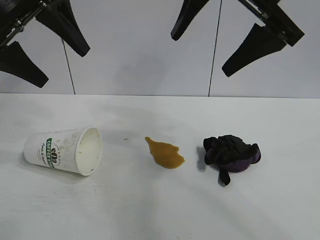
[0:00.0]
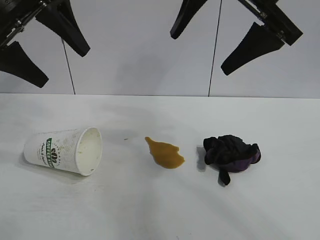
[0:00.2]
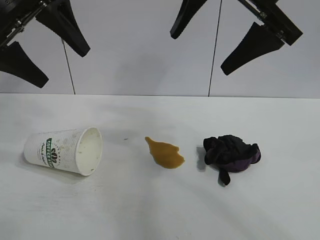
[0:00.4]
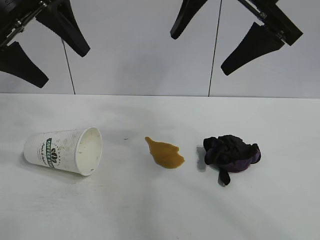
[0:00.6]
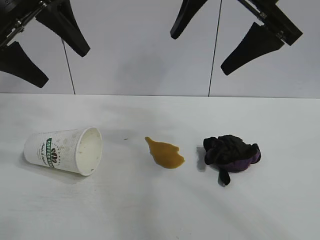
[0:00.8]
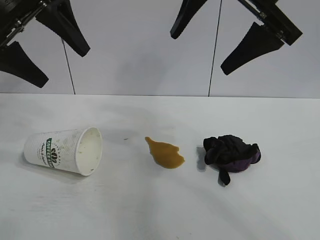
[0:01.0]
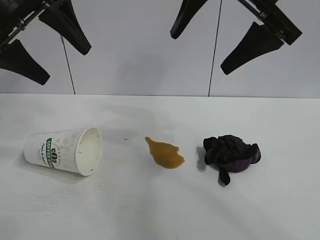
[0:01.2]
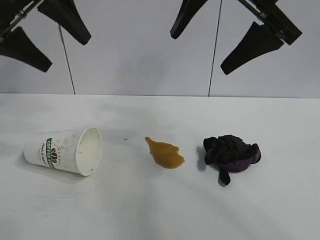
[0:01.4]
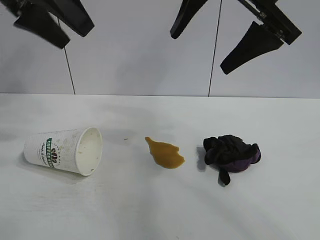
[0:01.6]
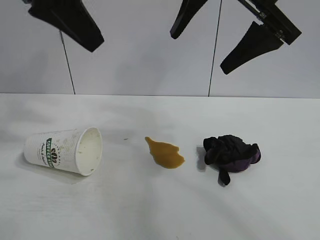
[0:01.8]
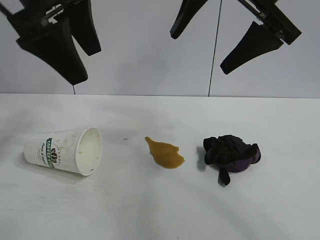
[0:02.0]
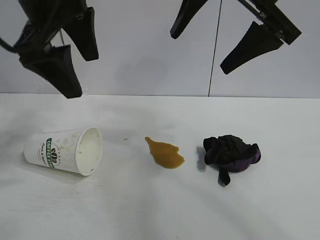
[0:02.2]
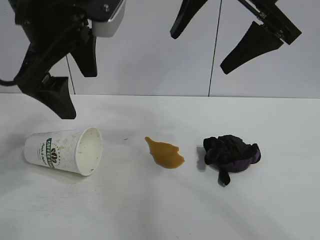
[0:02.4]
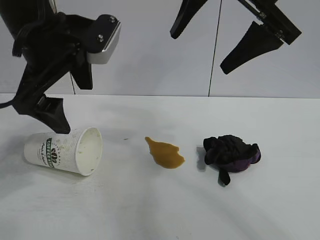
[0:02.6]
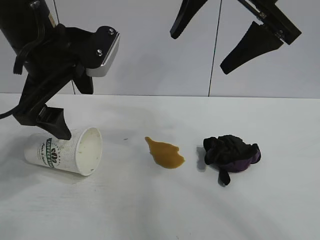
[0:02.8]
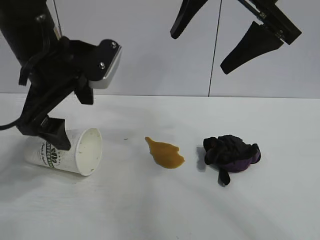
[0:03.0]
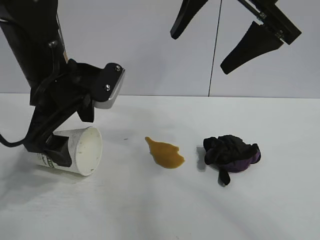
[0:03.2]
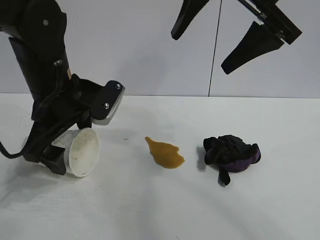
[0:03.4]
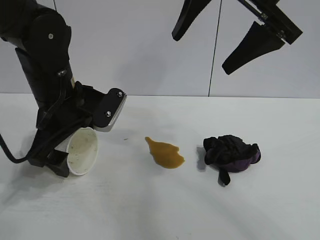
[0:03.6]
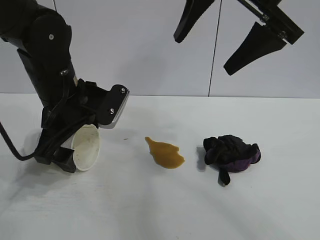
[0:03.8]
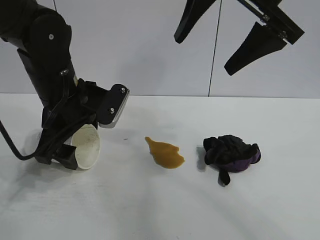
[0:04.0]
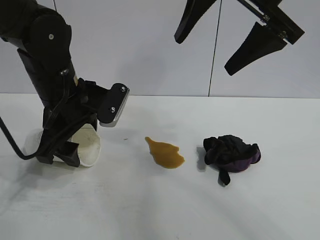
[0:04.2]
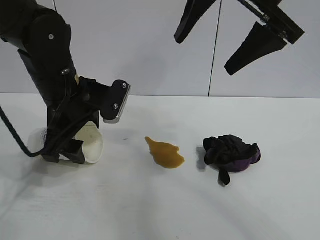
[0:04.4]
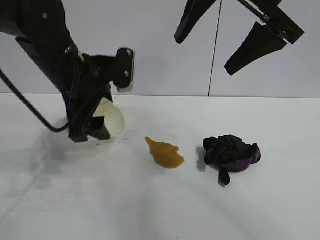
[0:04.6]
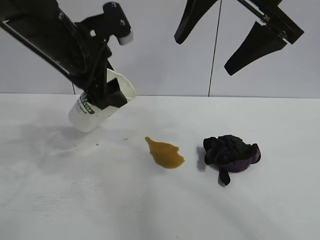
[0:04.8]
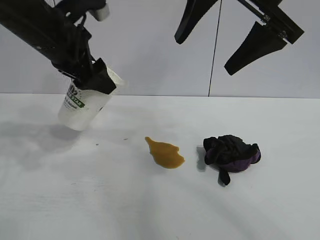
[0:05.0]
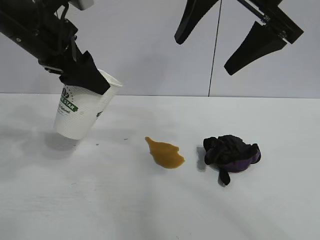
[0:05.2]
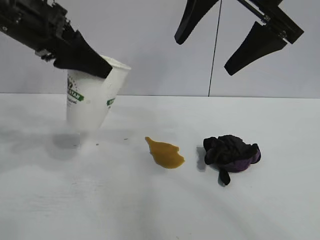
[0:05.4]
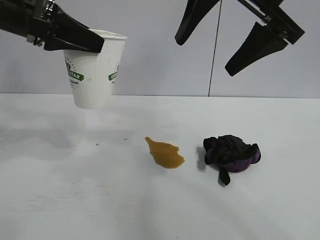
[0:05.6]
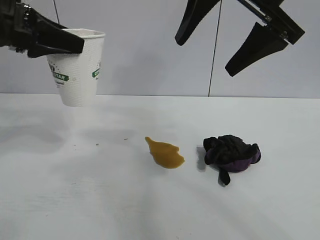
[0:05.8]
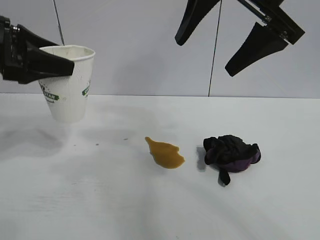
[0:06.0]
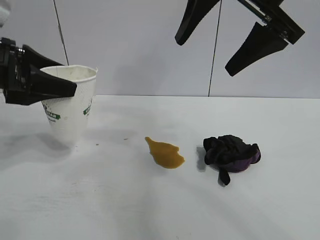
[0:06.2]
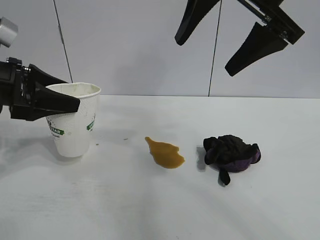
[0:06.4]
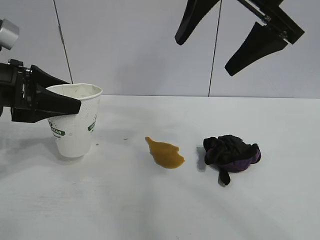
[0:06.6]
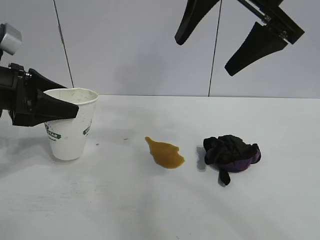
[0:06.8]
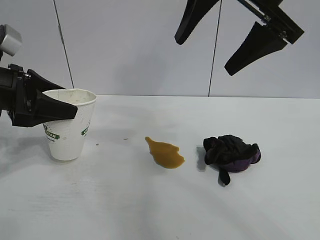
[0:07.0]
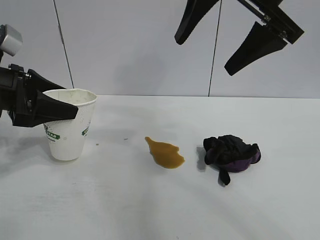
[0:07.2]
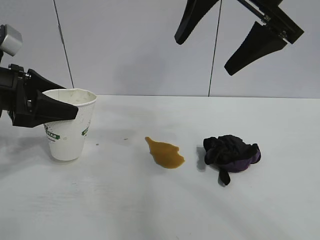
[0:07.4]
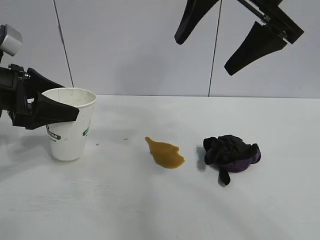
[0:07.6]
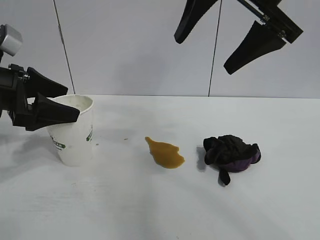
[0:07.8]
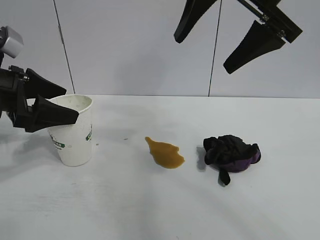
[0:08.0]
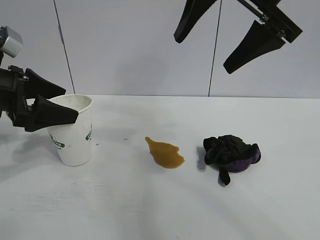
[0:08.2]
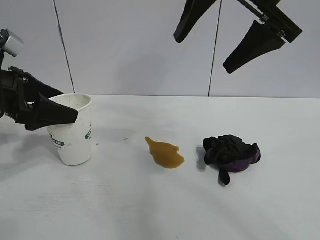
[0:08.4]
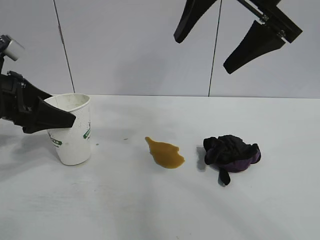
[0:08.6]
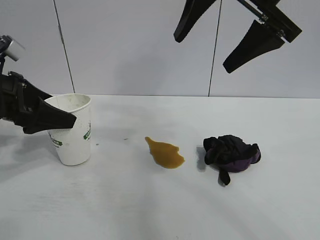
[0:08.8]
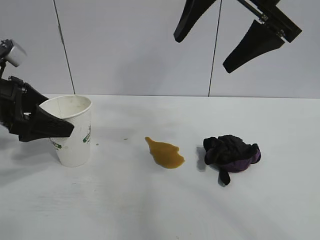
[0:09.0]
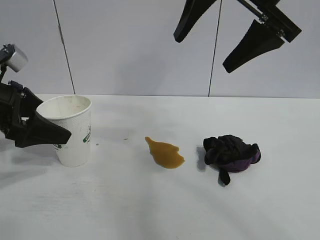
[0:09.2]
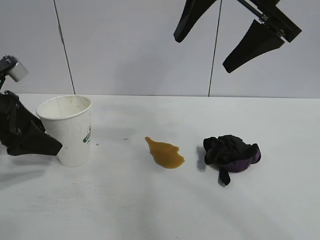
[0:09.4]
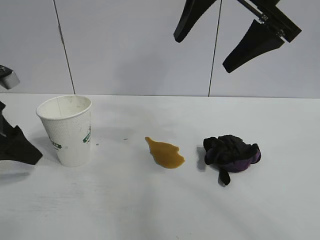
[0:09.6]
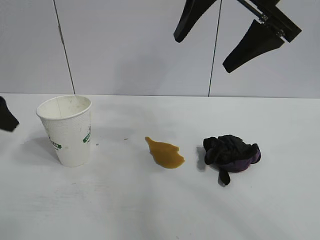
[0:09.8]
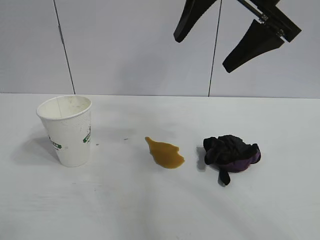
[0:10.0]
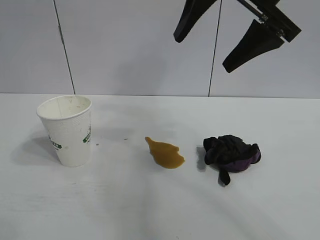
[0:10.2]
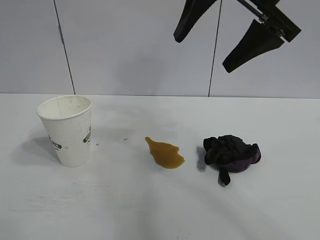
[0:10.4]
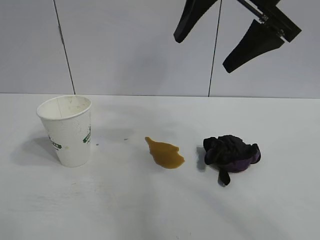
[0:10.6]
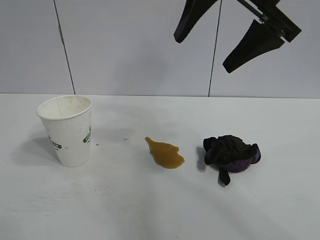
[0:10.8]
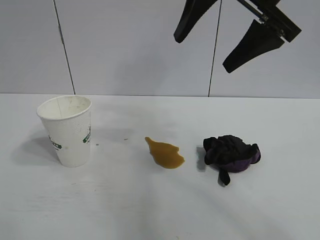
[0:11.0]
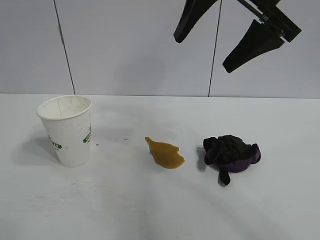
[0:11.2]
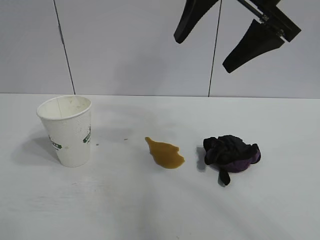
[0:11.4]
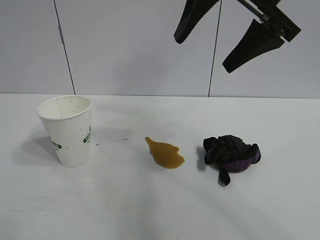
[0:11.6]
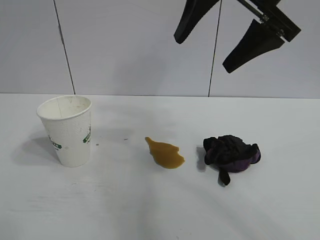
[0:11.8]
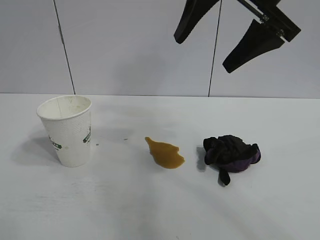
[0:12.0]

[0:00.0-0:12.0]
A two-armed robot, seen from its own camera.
Task of the whole recording: the left gripper pick up the fallen cup and place it upright, the right gripper grasp the black rag and wipe the stain on the table, the right gripper put the black rag back in its original position.
Step, 0:01.2 to 0:04.2: Grasp the paper cup with left gripper.
Step, 0:04.4 to 0:09.0: Stand the paper cup upright with left gripper.

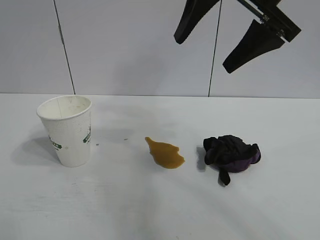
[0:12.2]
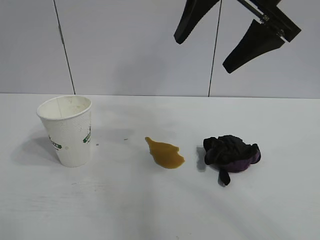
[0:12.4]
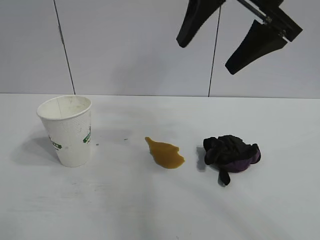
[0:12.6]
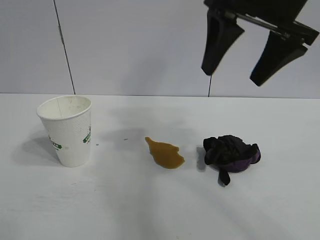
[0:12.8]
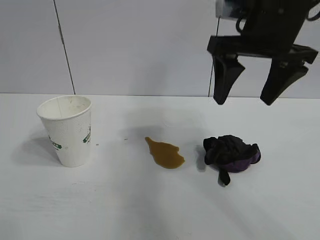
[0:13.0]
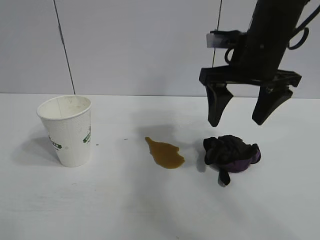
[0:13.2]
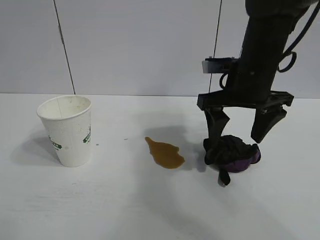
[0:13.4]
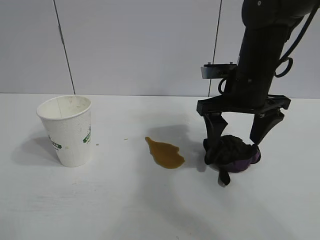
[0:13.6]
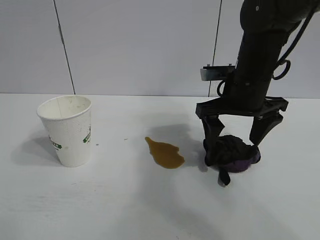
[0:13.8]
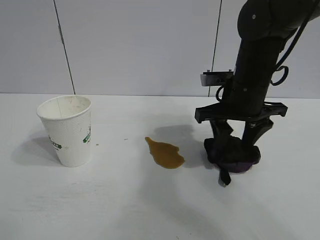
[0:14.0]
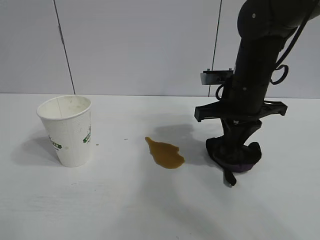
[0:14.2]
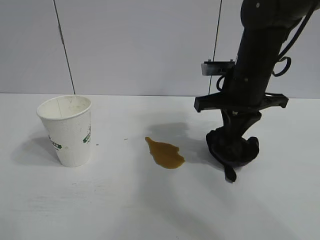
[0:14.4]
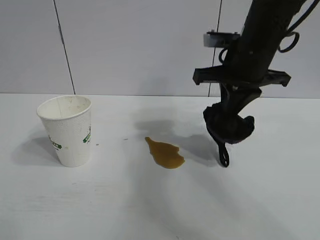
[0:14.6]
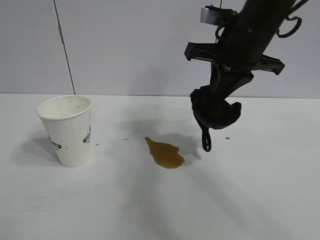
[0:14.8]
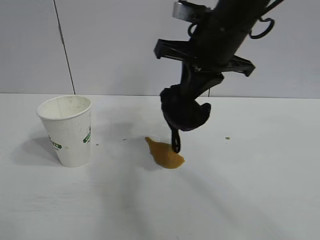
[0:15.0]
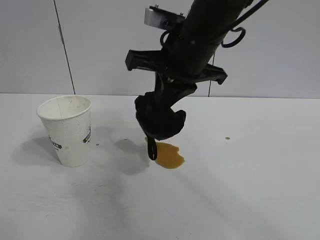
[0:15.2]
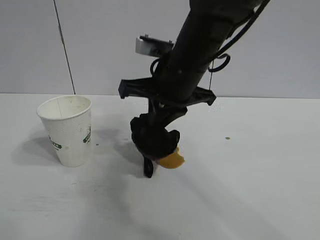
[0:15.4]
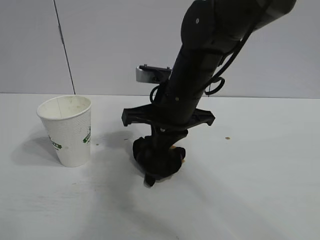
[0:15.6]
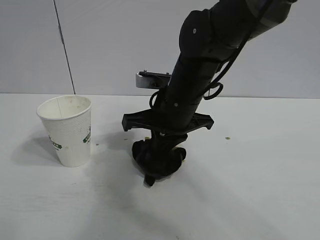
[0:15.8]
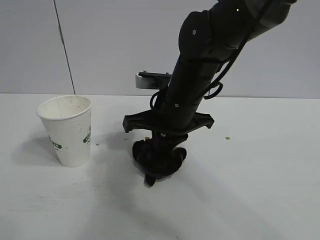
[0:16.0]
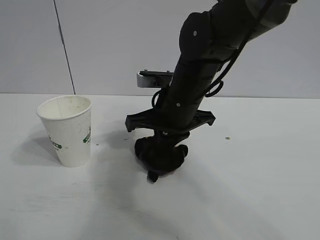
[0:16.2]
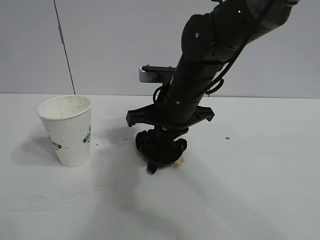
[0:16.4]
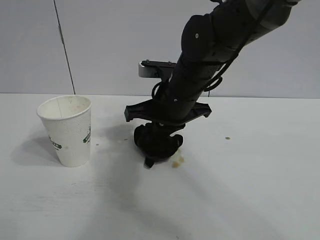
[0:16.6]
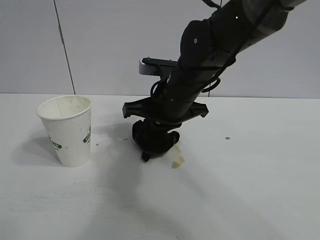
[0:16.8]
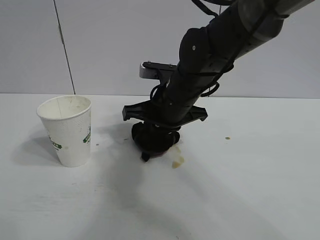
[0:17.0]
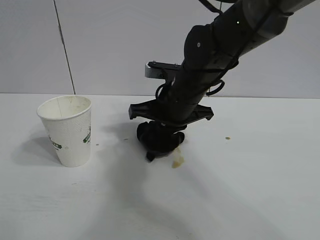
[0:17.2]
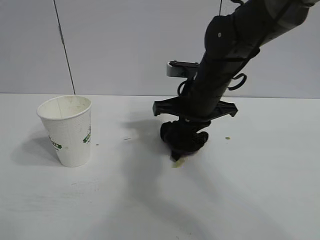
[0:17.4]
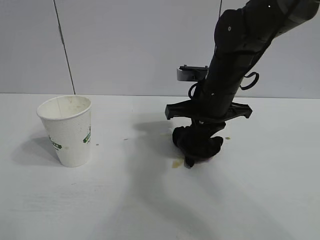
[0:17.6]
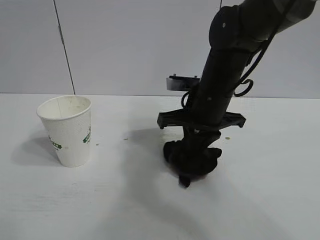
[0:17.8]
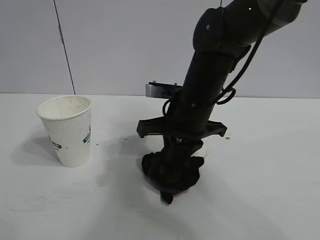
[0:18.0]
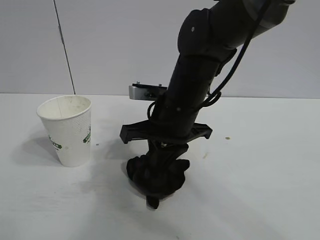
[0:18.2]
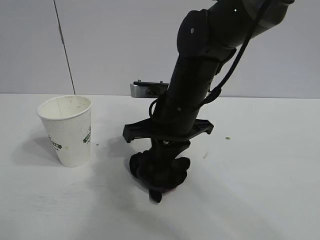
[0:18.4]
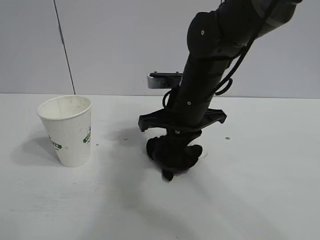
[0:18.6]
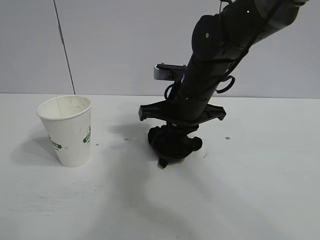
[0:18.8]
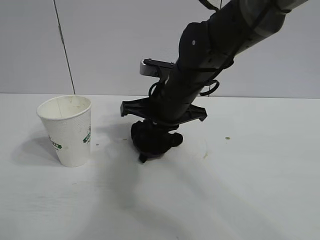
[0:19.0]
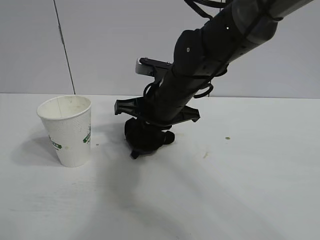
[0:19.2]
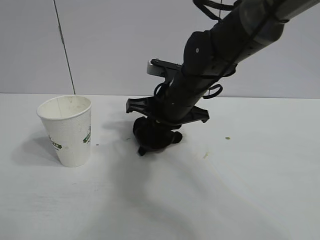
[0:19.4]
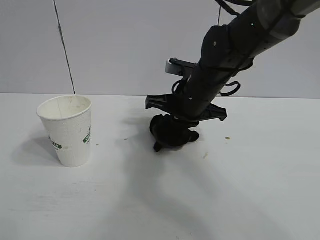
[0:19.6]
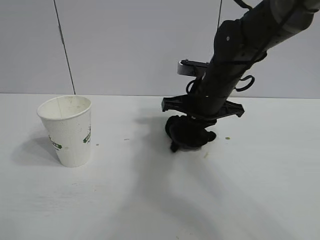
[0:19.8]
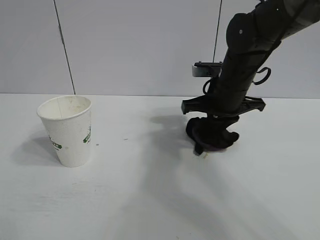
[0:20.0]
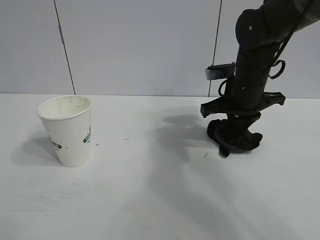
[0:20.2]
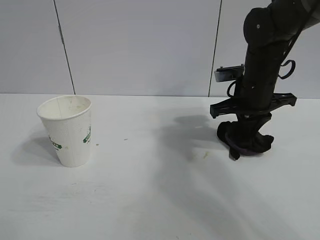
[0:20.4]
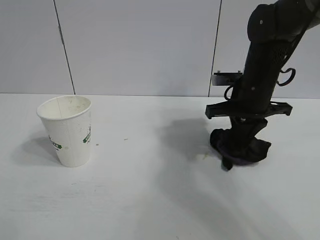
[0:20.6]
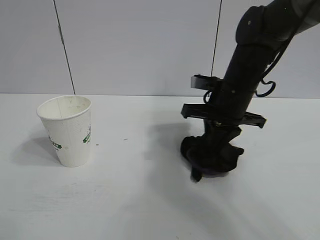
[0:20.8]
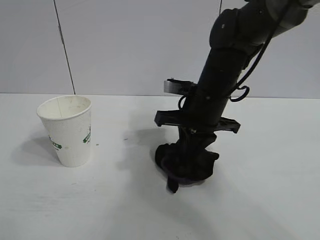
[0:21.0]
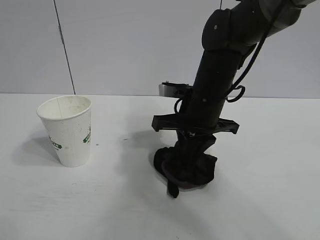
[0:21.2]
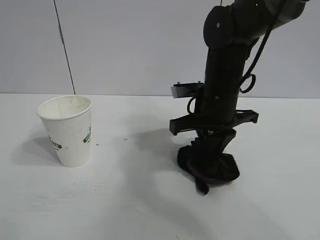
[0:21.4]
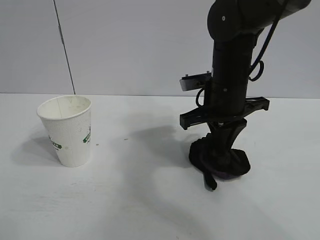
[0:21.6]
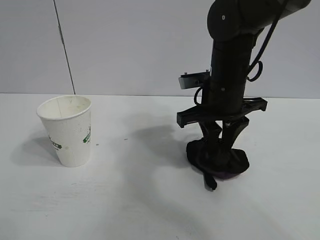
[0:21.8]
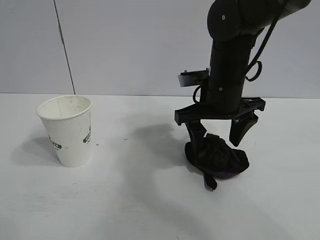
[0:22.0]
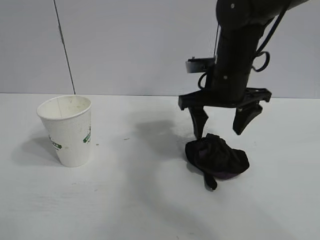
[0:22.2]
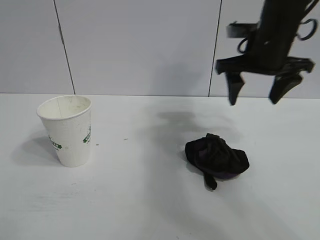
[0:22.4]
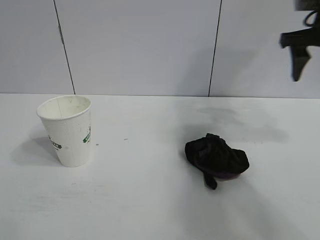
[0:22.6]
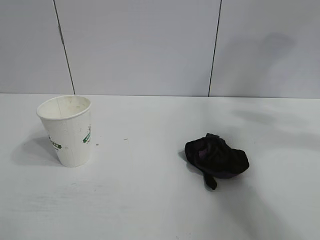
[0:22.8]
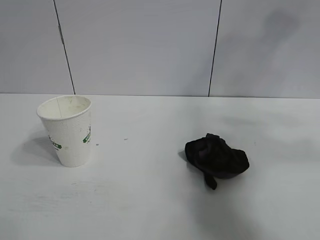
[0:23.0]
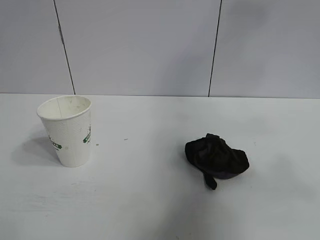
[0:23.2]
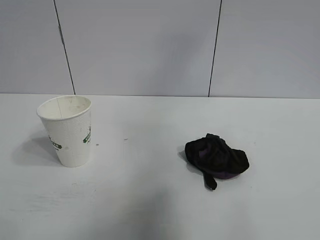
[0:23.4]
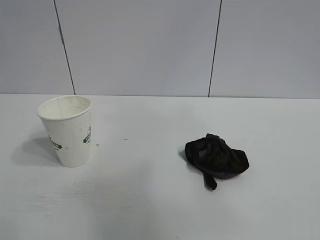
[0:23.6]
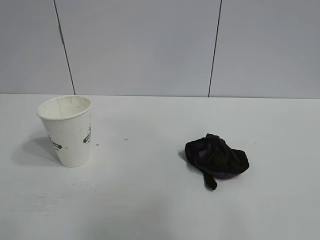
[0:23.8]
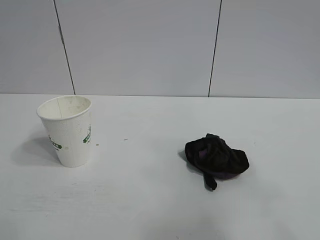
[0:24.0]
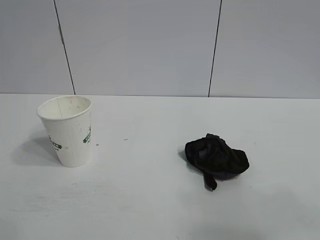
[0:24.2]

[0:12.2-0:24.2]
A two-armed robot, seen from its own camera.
Task of the whole recording: the left gripper pick up the fallen cup and place it upright, the right gripper grasp the black rag and wipe the stain on the table, the right gripper put the black rag back in its original position.
Step, 0:12.2 to 0:14.2: Grasp the rag with right gripper.
Step, 0:14.4 to 0:21.0: Wipe the stains off the table with the rag with right gripper.
Step, 0:21.2 to 0:21.8: Place the rag on the table with right gripper.
